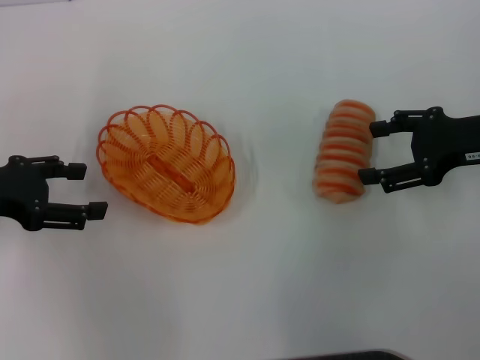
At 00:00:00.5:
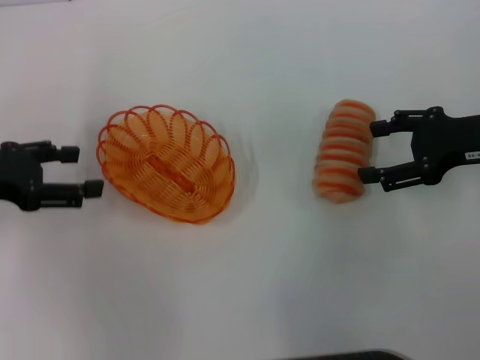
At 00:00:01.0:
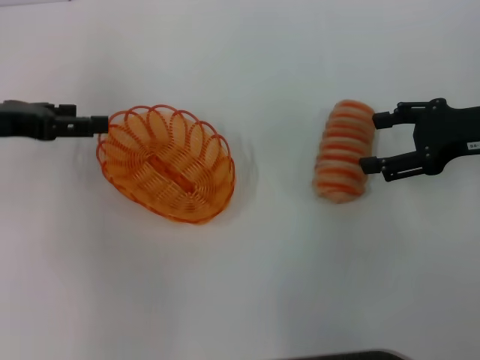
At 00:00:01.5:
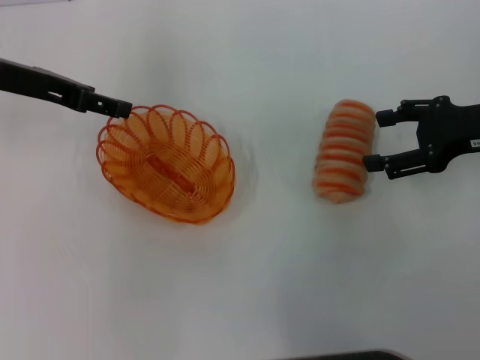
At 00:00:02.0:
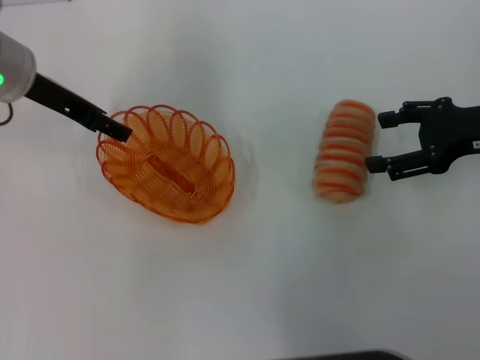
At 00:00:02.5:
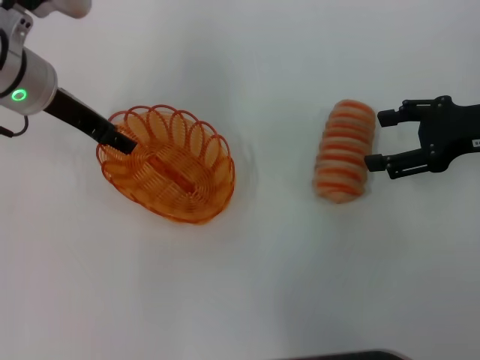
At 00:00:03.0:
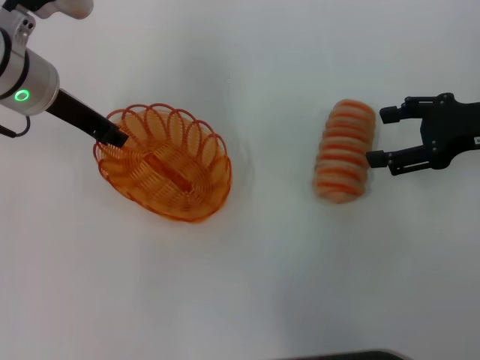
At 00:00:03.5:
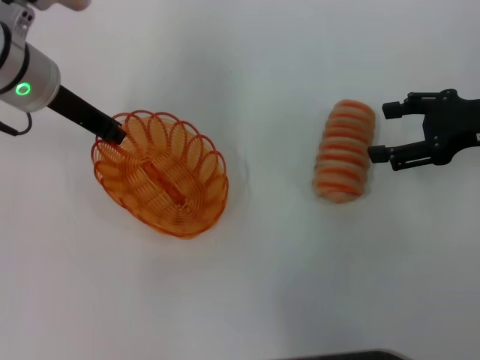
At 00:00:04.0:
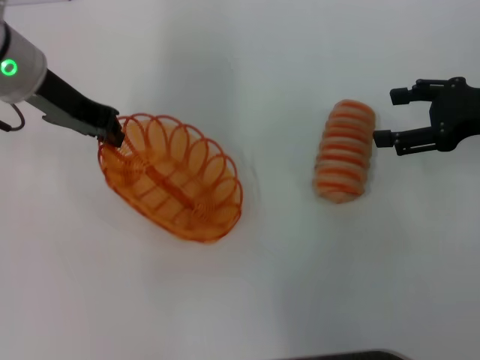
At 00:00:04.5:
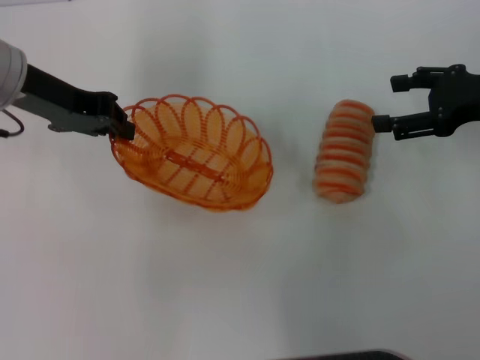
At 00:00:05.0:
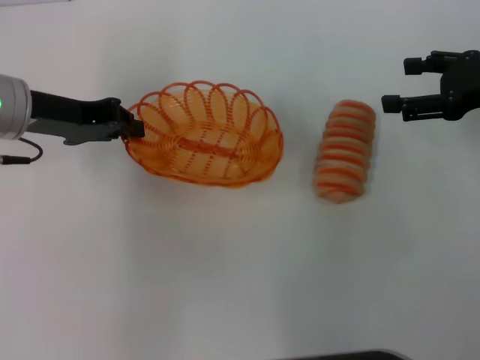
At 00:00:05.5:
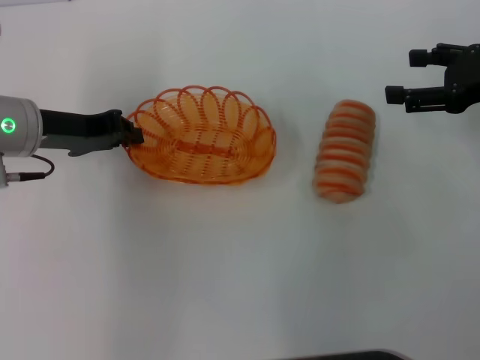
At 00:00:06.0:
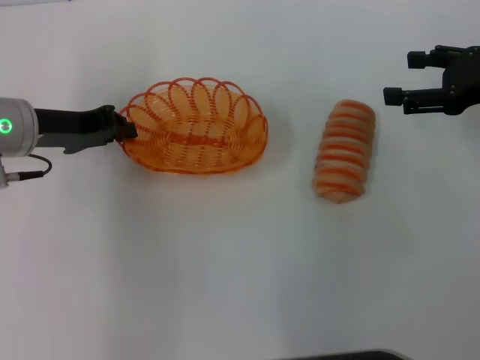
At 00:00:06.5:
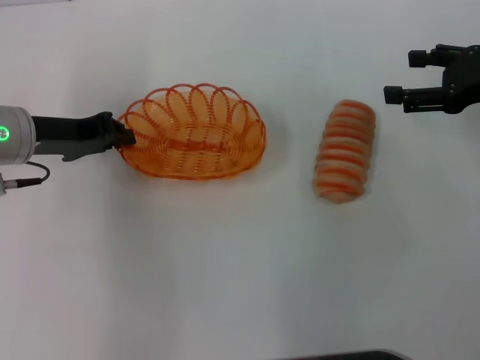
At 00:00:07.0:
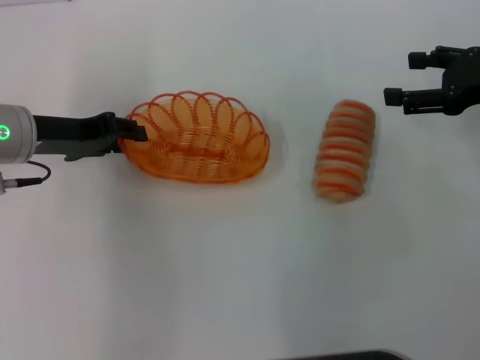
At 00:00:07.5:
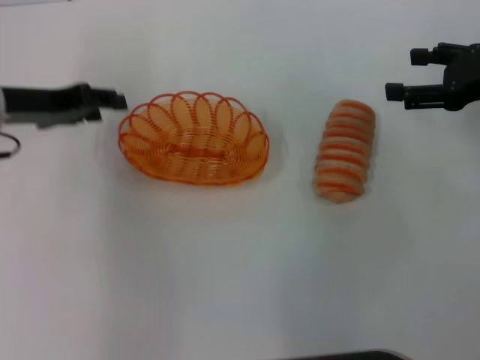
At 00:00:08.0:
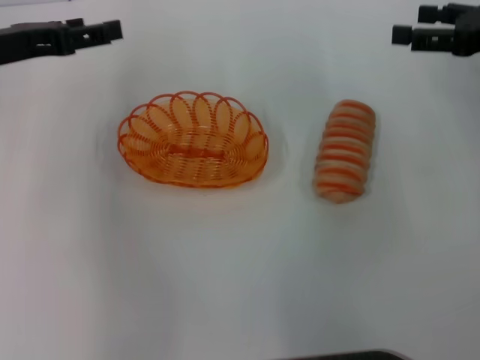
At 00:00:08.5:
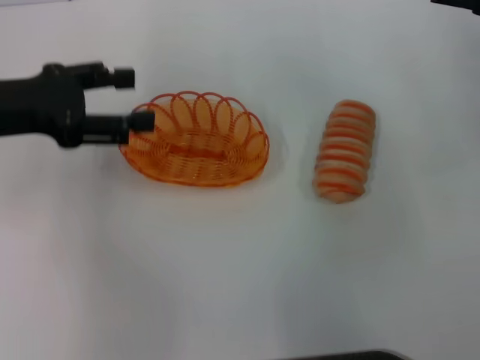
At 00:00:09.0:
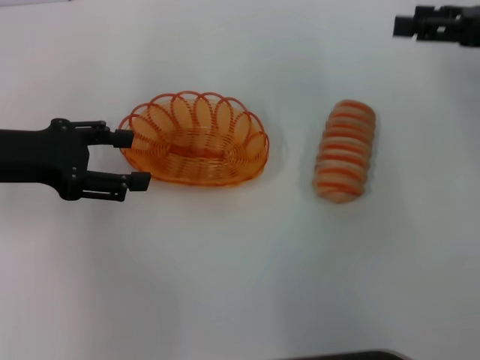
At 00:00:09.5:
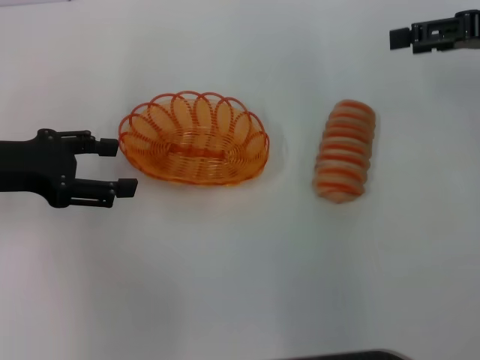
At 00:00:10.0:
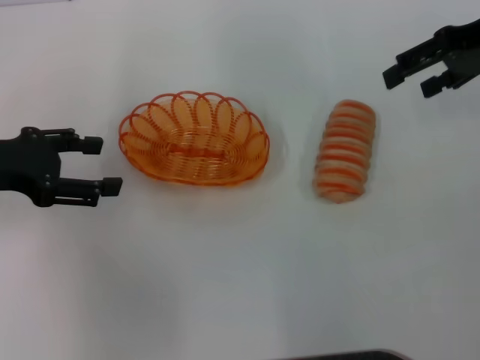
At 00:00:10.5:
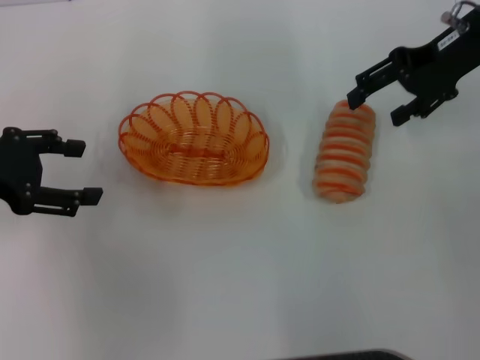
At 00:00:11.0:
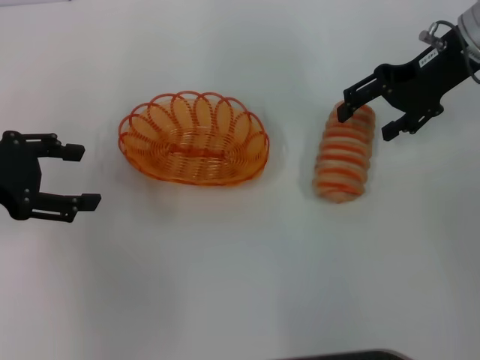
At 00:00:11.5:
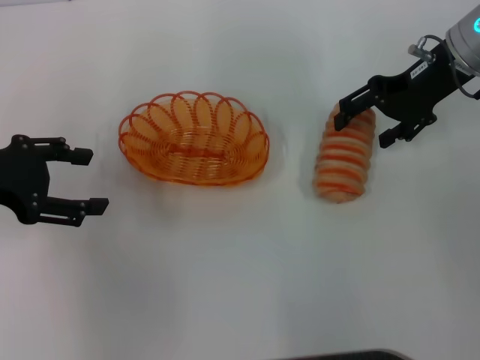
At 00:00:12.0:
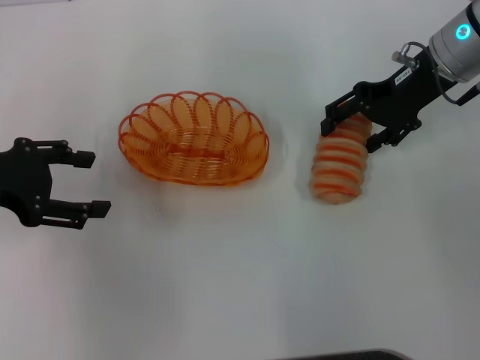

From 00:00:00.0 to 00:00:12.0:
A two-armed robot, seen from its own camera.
Step, from 00:00:00.0 to 00:00:03.5: Pick up the basket with the left gripper.
Step, from 00:00:04.0 to 00:00:07.5: Place the basket in the center of view with the left gripper.
From 00:00:00.0 to 00:00:02.0: The left gripper heads forward and to the right, covering about 15 cm.
From 00:00:02.0 to 00:00:04.0: The left gripper closes up.
From 00:00:04.0 to 00:00:06.0: The left gripper shifts approximately 5 cm downward.
From 00:00:06.0 to 00:00:08.0: The left gripper heads upward, covering approximately 5 cm, and opens its fingers.
From 00:00:08.0 to 00:00:10.0: The left gripper heads backward, covering some 5 cm; the right gripper is displaced upward by roughly 5 cm.
From 00:00:10.0 to 00:00:12.0: The right gripper shifts about 10 cm downward and to the left.

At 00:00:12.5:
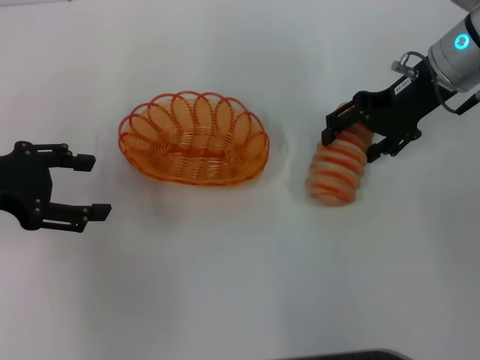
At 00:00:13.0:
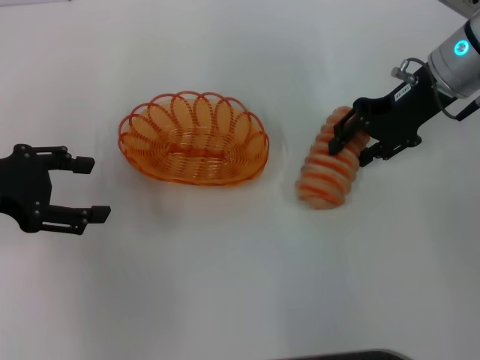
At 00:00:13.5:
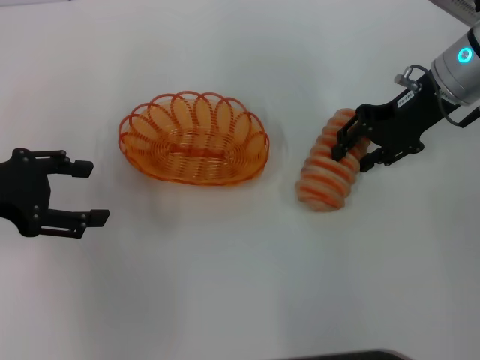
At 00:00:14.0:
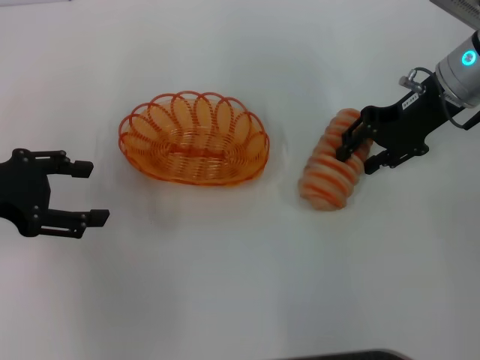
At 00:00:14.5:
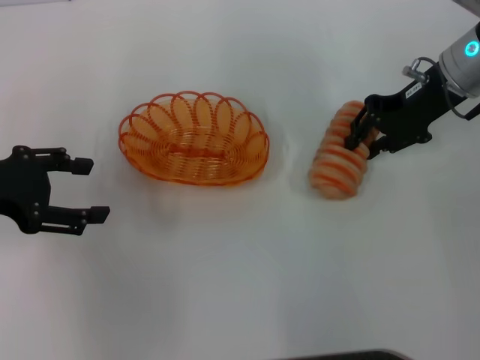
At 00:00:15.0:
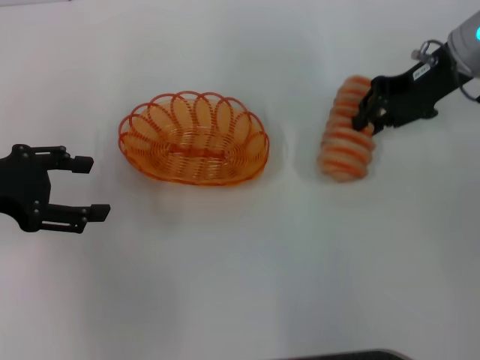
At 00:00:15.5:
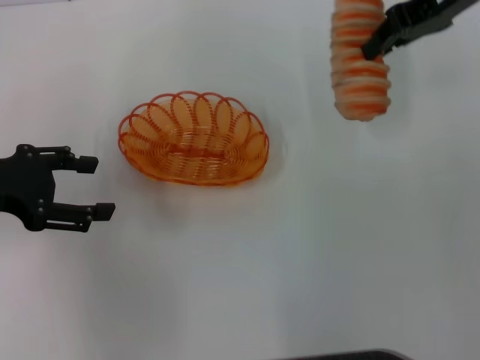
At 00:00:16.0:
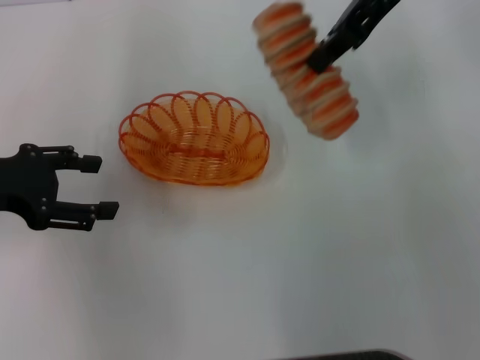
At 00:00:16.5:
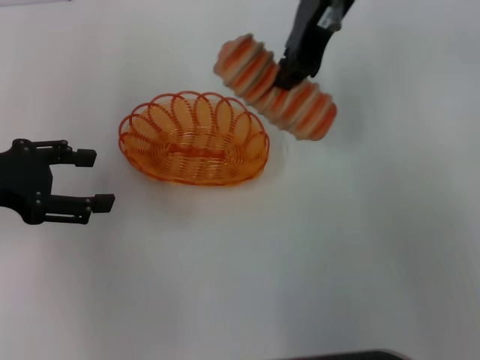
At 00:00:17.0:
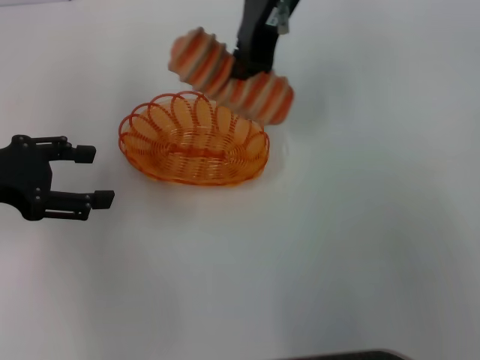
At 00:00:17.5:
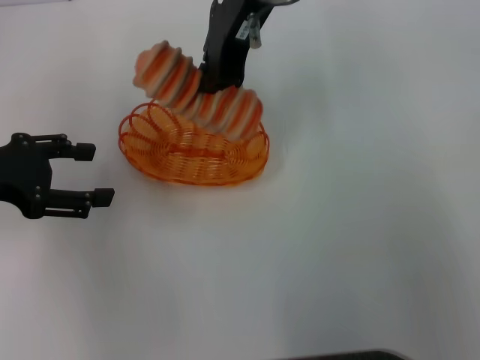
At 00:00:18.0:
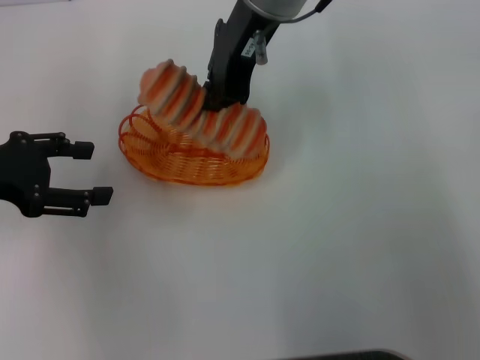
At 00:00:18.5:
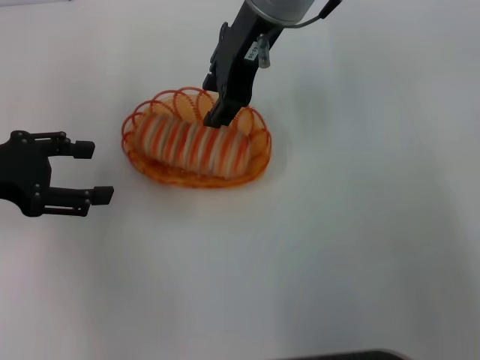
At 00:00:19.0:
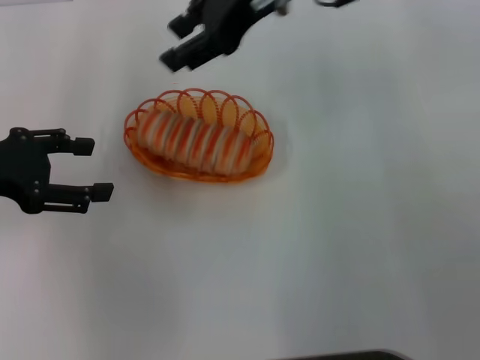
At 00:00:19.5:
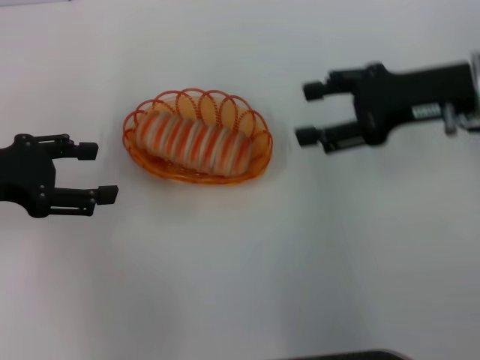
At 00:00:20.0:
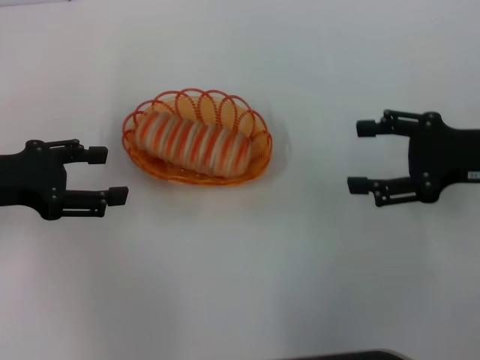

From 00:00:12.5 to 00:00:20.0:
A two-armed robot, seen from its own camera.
Step, from 00:00:12.5 to 00:00:15.5: Pick up the long bread with the right gripper.
Step, from 00:00:16.0 to 00:00:19.0: Place the long bread into the basket with the right gripper.
From 00:00:12.5 to 00:00:14.5: The right gripper closes up.
From 00:00:14.5 to 00:00:16.5: The right gripper goes roughly 20 cm to the left and upward.
From 00:00:16.5 to 00:00:18.0: The right gripper heads to the left, covering about 5 cm.
From 00:00:18.0 to 00:00:20.0: The right gripper goes approximately 30 cm to the right, backward and downward, and opens its fingers.
